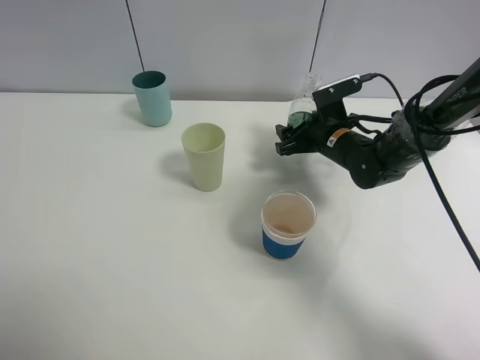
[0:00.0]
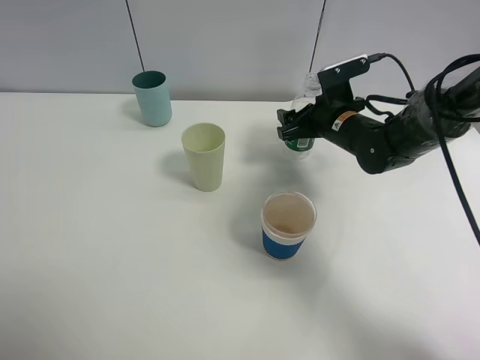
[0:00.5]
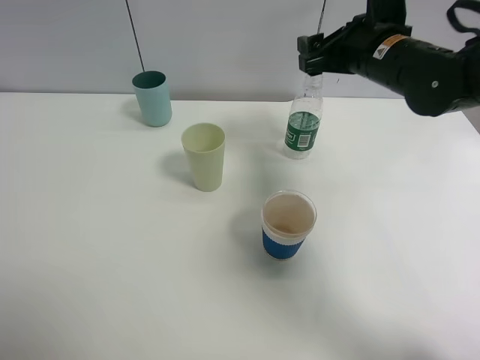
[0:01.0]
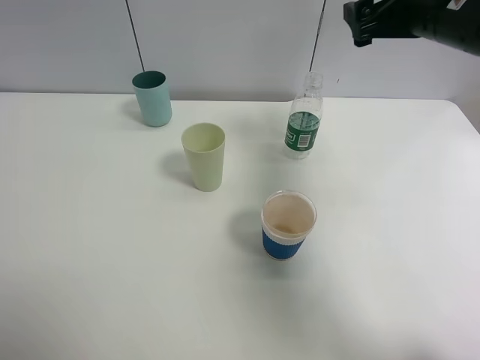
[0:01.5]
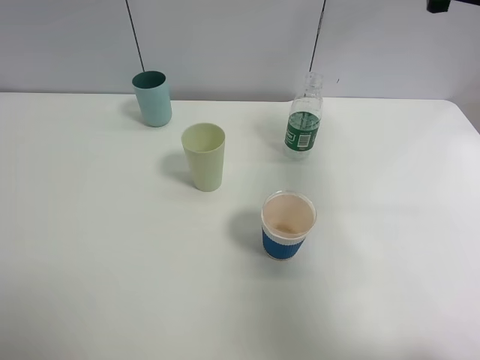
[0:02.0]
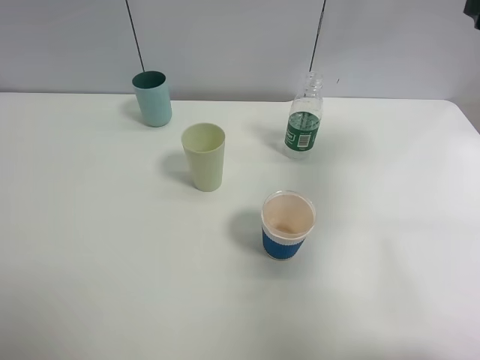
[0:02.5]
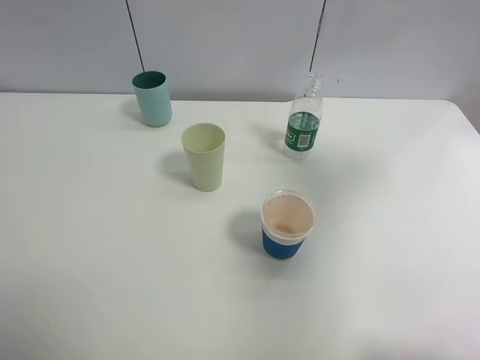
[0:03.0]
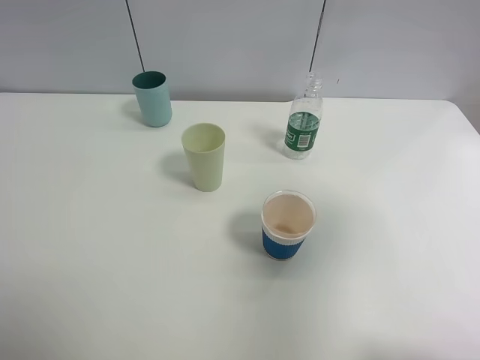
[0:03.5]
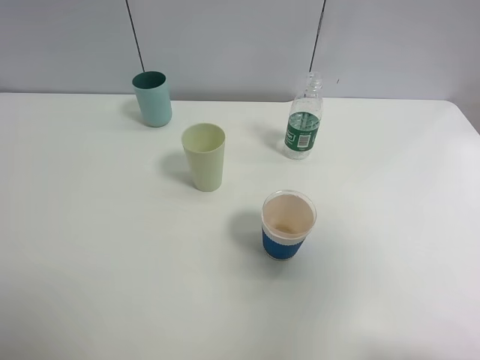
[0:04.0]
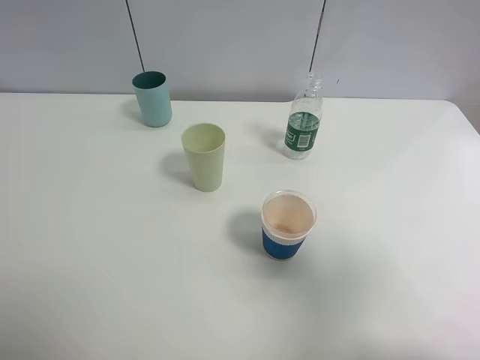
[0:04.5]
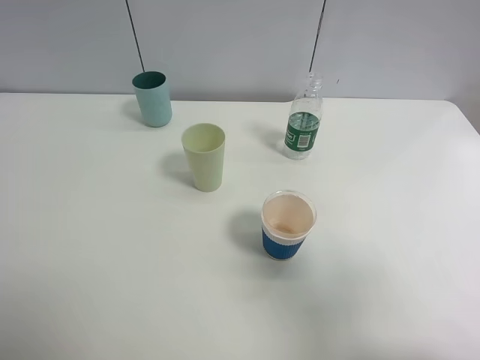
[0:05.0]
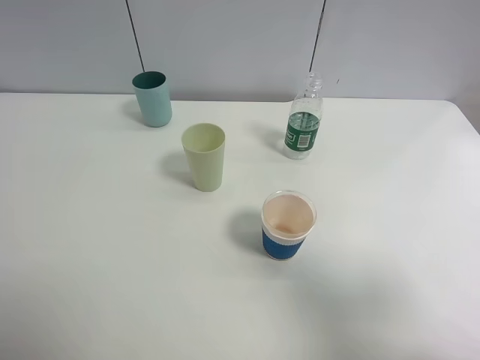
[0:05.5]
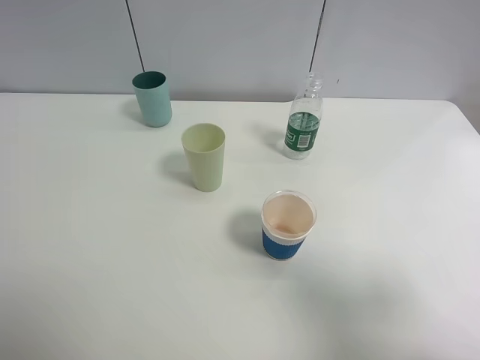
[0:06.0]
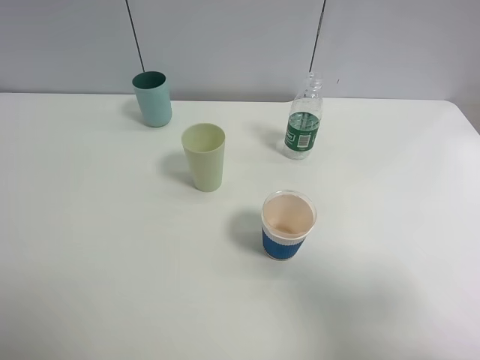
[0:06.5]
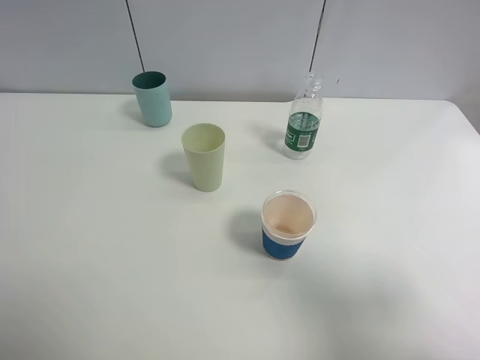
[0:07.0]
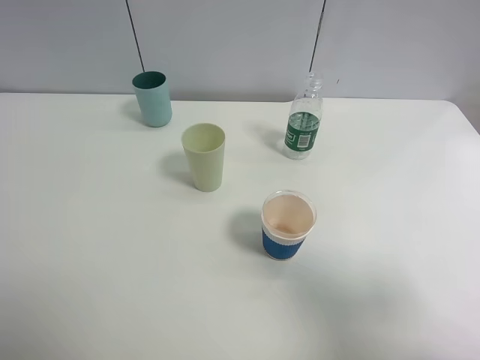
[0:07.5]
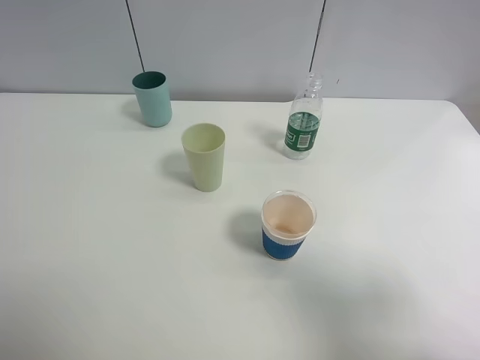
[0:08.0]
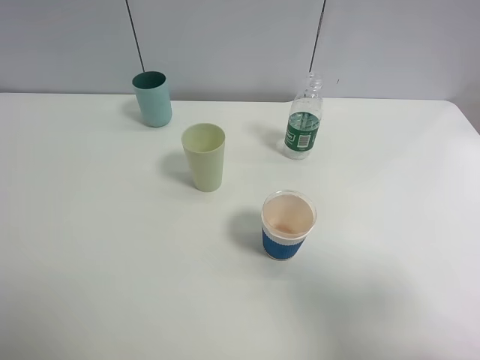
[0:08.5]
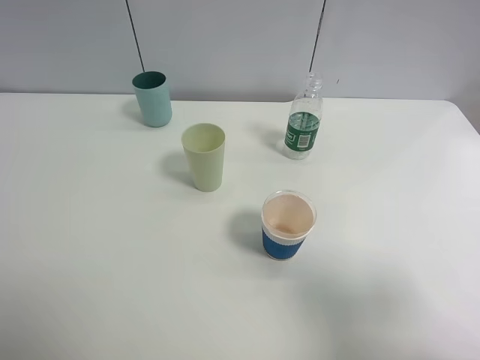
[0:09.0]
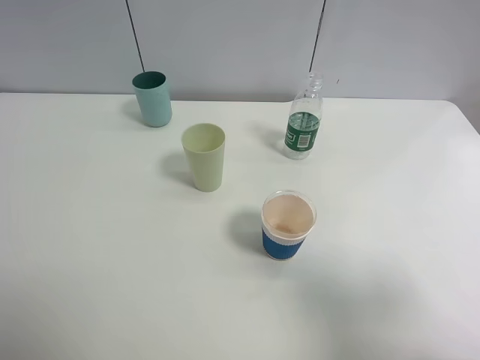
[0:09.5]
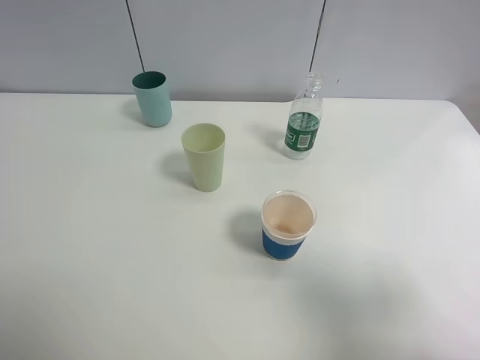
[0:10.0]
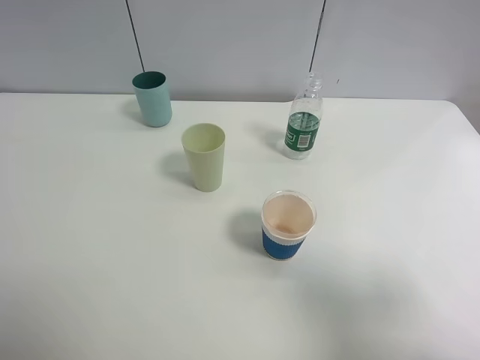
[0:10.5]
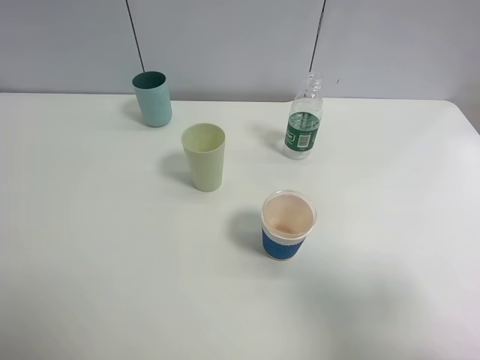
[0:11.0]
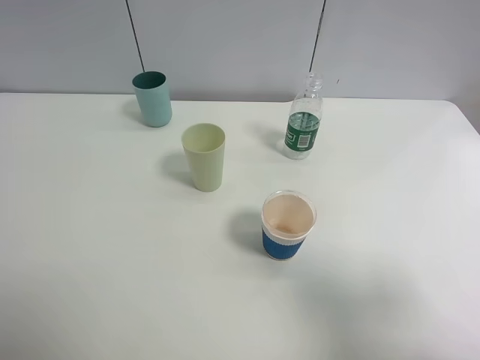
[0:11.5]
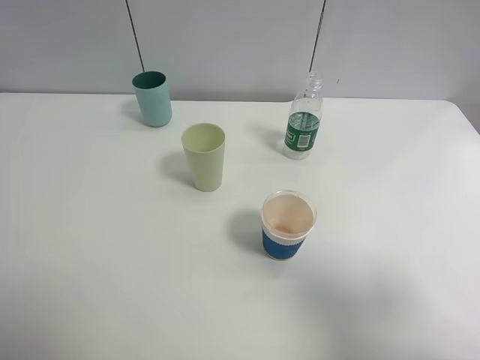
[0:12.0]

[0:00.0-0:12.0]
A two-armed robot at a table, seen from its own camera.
Task of the whole recording: use a clamp to hold the bottle of the drink, pour the beverage into a random cup, then clamp the cup containing the drink and pour the drink into another random cup.
0:00.0 to 0:02.0: The right gripper travels upward and to the right by approximately 30 cm, and opens.
0:02.0 to 0:04.0: The right gripper is displaced backward by roughly 30 cm.
0:04.0 to 0:06.0: The right gripper is displaced downward by roughly 10 cm.
0:06.0 to 0:10.0: Both grippers stay put.

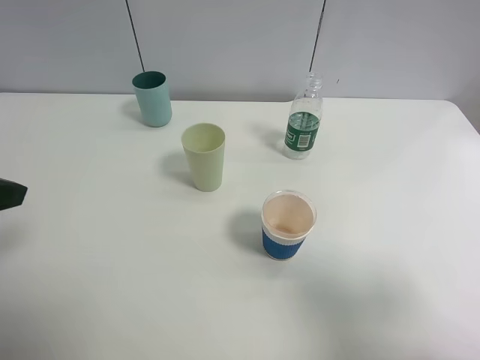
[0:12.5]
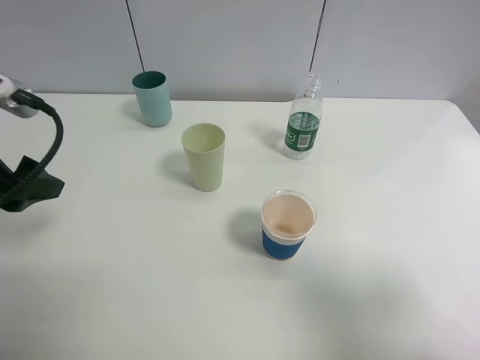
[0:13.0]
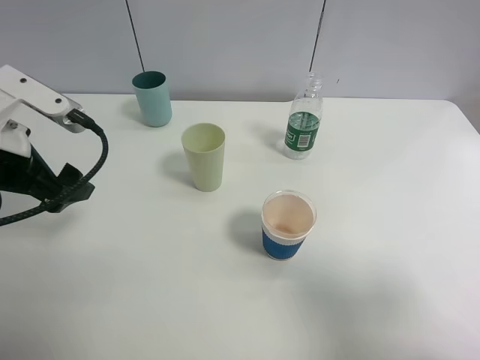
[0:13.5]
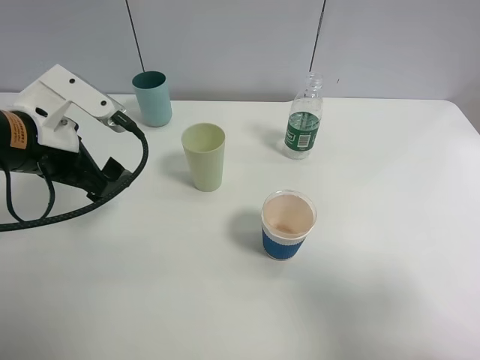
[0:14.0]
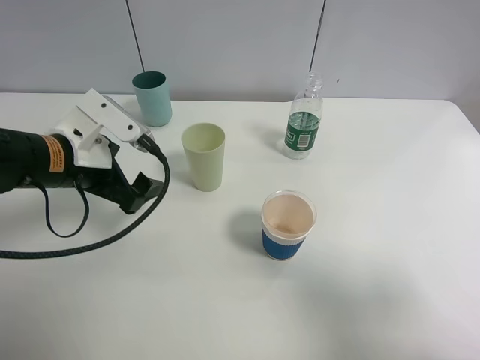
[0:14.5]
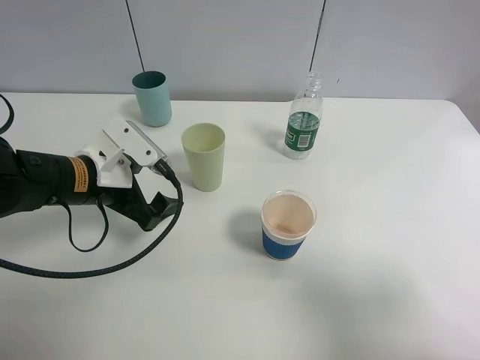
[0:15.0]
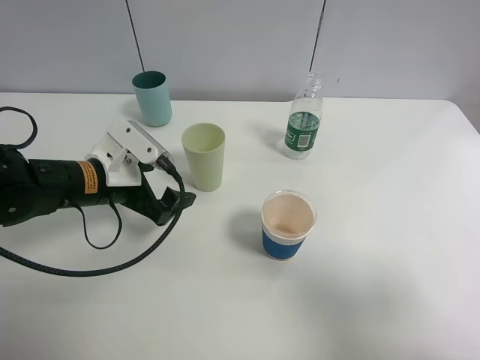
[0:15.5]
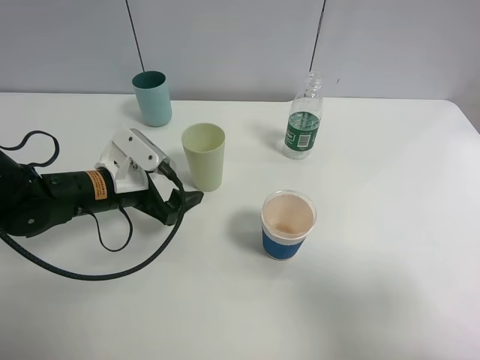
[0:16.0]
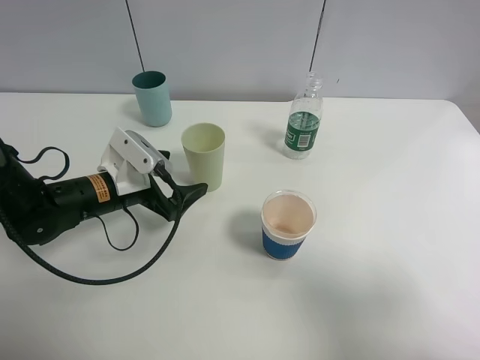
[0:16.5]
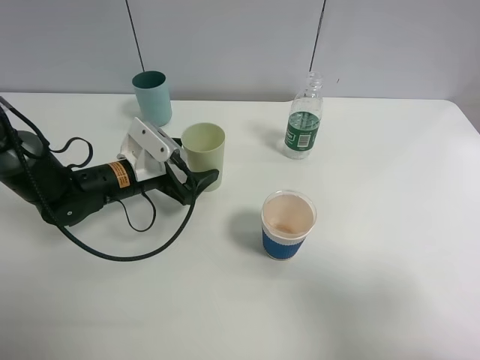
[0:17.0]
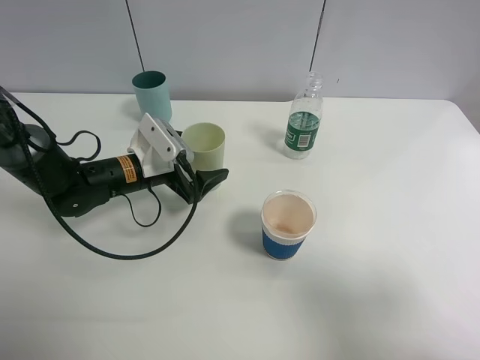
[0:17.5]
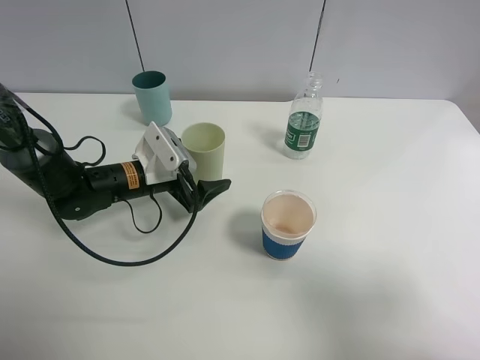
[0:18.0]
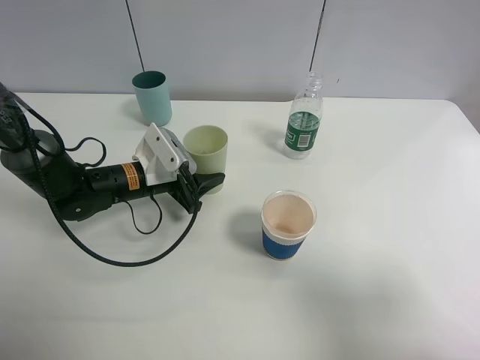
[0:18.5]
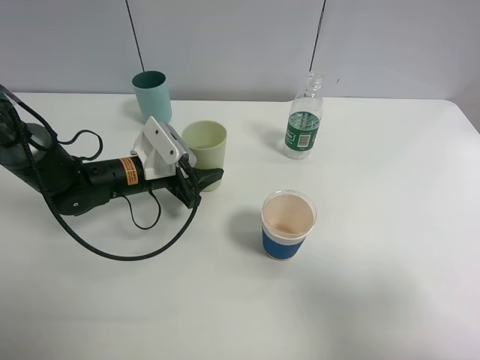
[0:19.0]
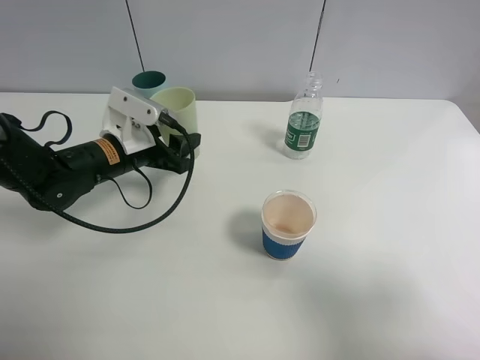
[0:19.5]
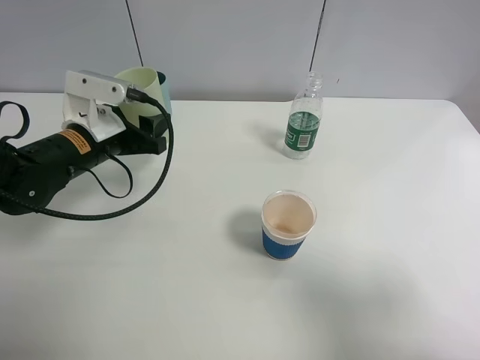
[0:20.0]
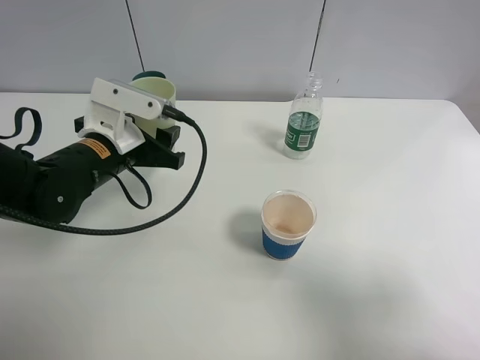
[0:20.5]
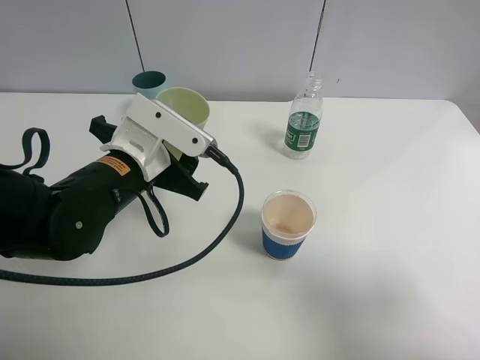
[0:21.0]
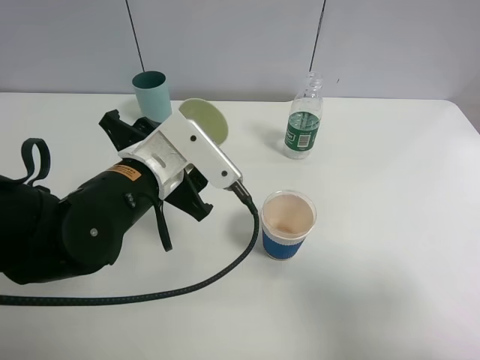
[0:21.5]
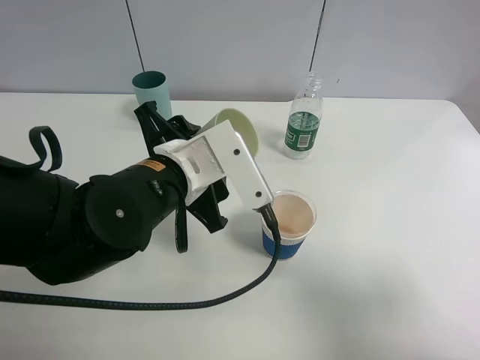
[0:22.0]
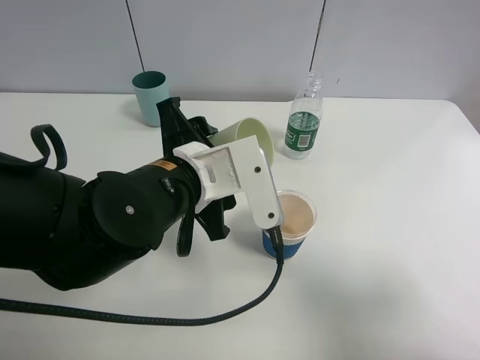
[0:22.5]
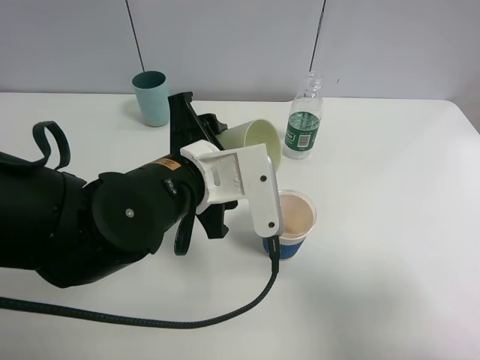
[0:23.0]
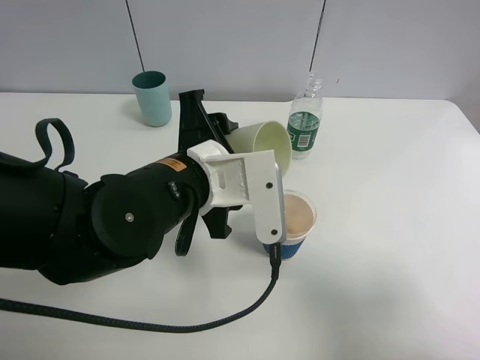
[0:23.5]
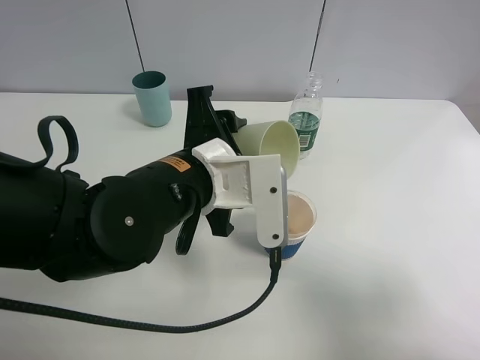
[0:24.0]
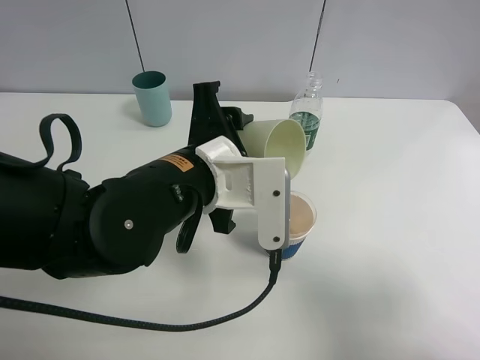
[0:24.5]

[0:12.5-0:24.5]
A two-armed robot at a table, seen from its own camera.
Task of the whole recording: use a clamp to hold the bottle of the drink, pour the beverage into a random cup, then clamp the cup containing the drink and pour the drink into another random cup.
Step, 0:12.5 to 0:19.0: Pick up the green plastic cup bottle with left gripper.
0:12.5 to 0:14.5: The left gripper shifts some 15 cm downward, forward and to the right.
0:14.5 to 0:16.5: The left gripper shifts approximately 10 cm downward.
0:16.5 to 0:18.5: The left gripper shifts by some 5 cm, and closes.
0:18.5 to 0:20.5: The left gripper is displaced upward by approximately 10 cm.
0:20.5 to 0:22.5: The left gripper heads to the right and backward, covering roughly 10 cm.
0:22.5 to 0:24.5: The grippers move only a little.

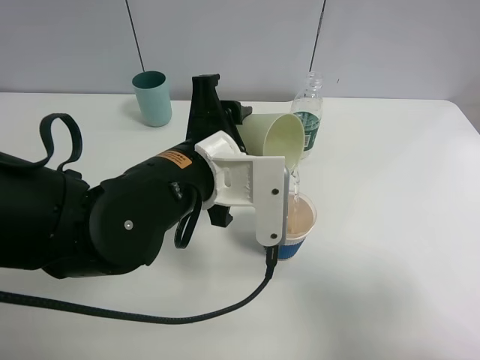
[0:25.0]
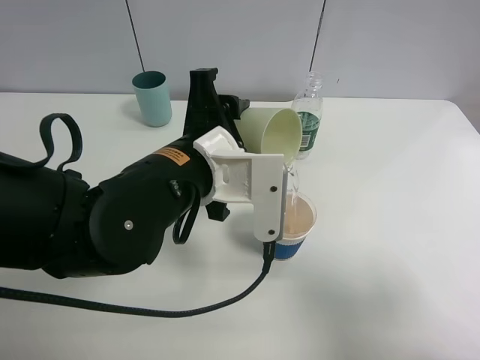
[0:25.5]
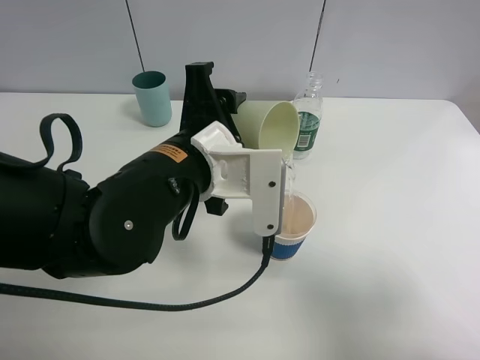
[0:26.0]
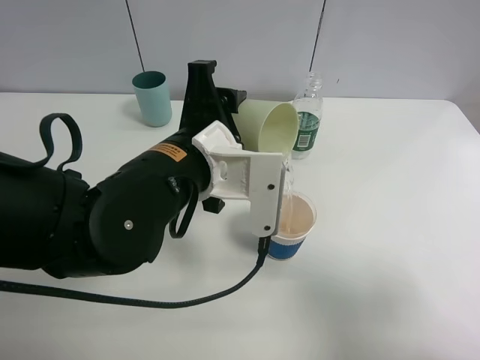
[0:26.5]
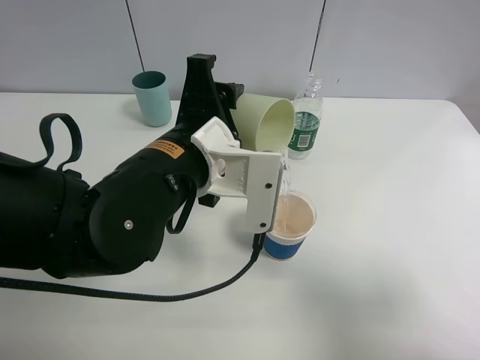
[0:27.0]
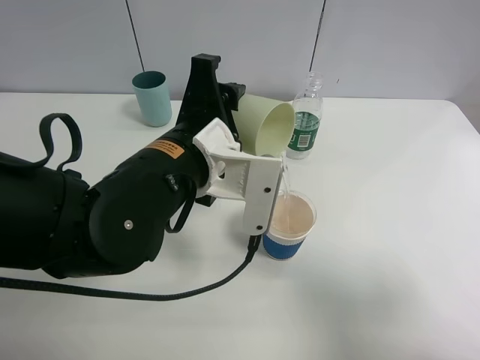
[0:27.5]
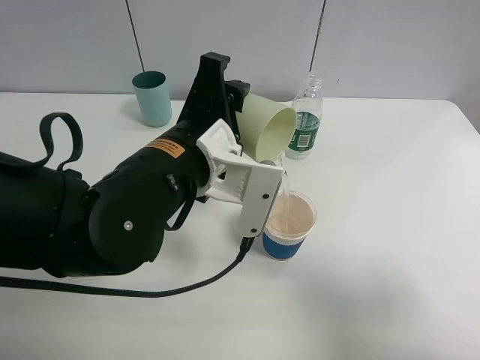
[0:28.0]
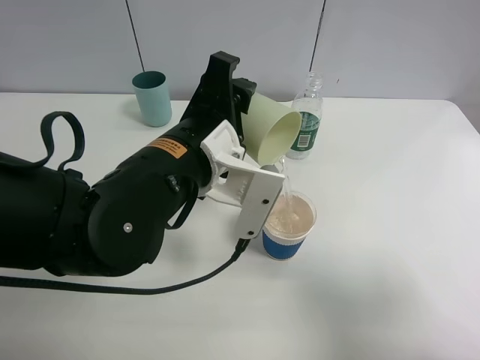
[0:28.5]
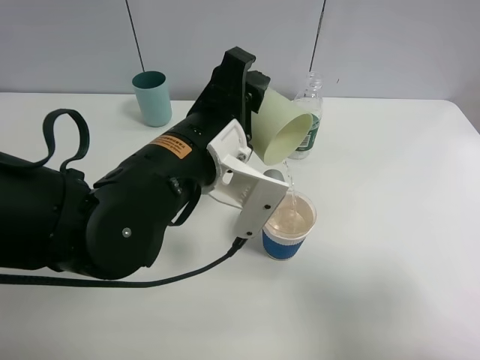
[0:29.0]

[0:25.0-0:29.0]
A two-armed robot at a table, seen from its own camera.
Task of the whole recording: use a clamp to hold the bottle of the drink, pour the beverage into a random cup, then clamp the cup containing the drink and pour the drink into another random cup.
0:25.0 to 0:27.0: The grippers make only small movements.
